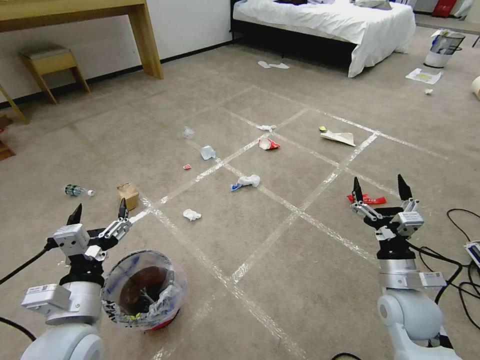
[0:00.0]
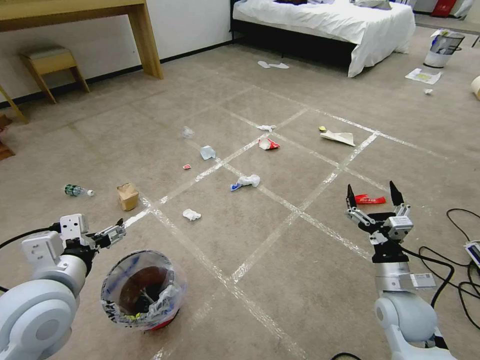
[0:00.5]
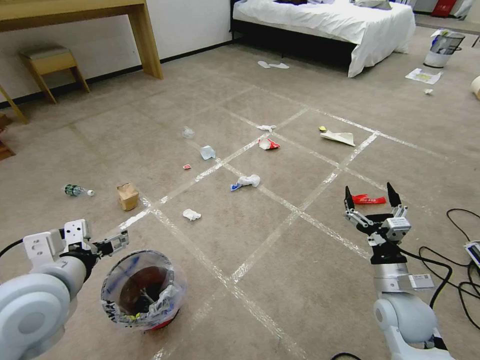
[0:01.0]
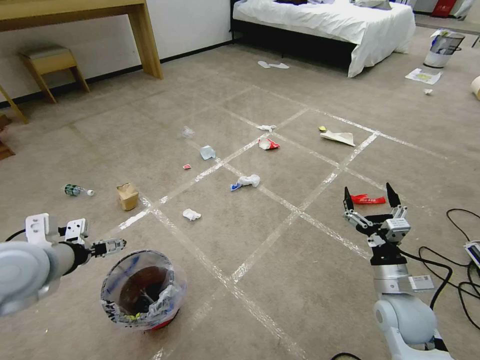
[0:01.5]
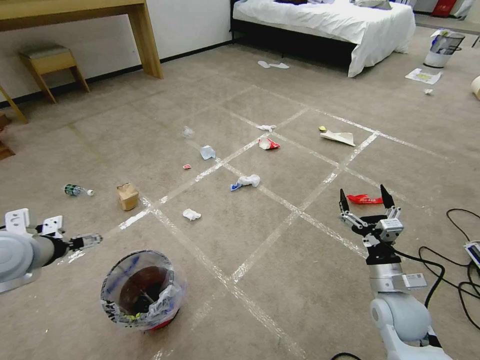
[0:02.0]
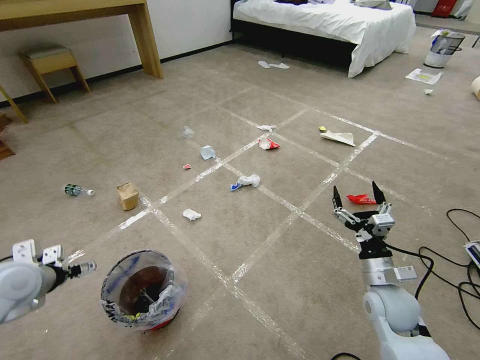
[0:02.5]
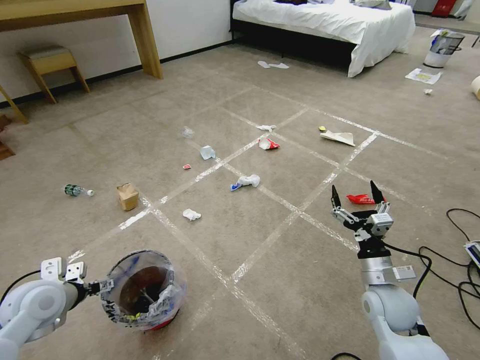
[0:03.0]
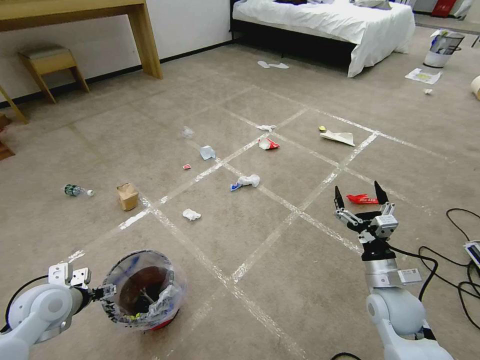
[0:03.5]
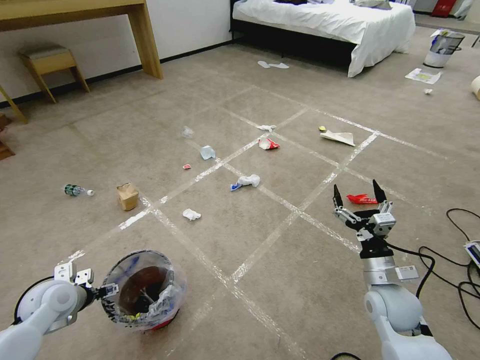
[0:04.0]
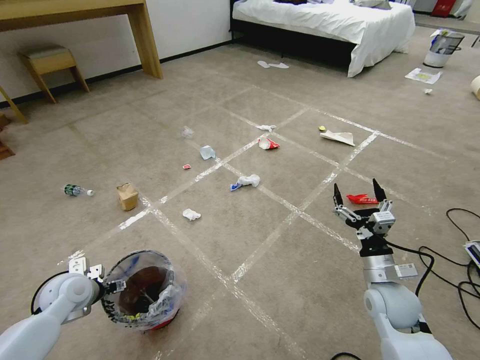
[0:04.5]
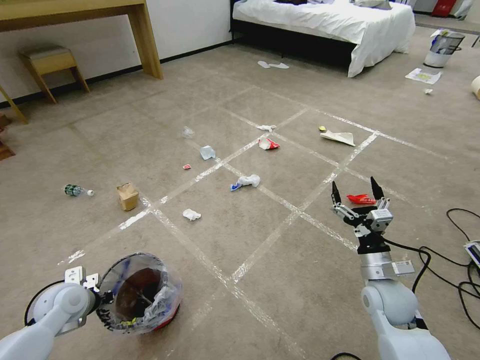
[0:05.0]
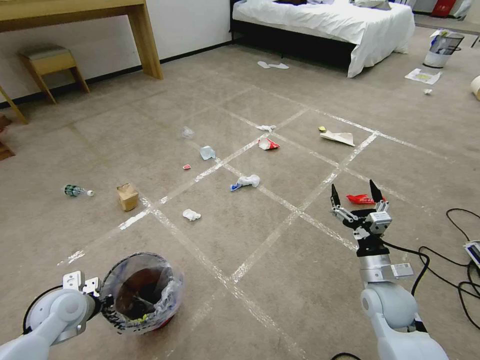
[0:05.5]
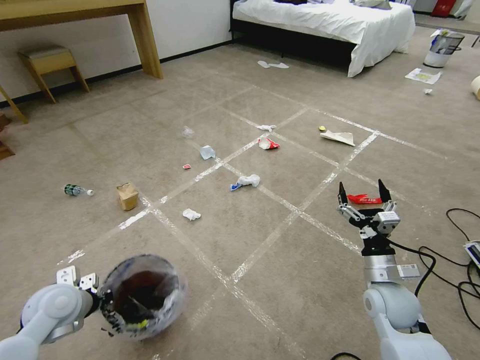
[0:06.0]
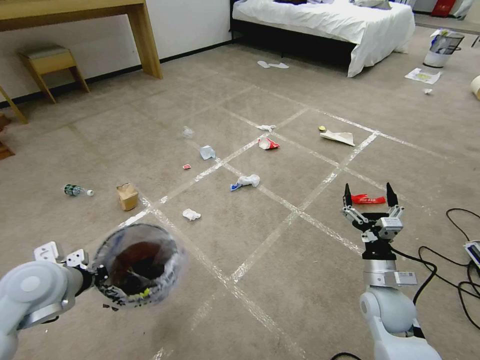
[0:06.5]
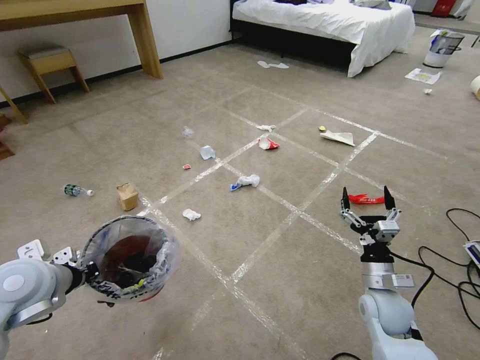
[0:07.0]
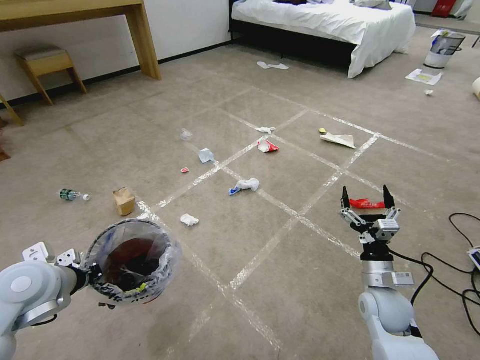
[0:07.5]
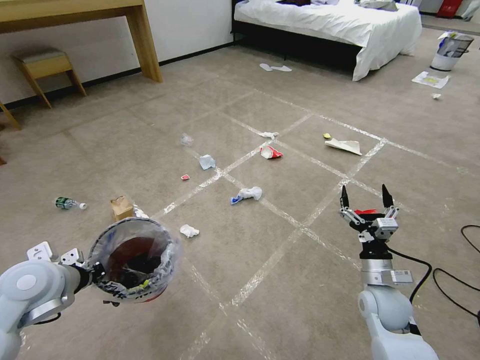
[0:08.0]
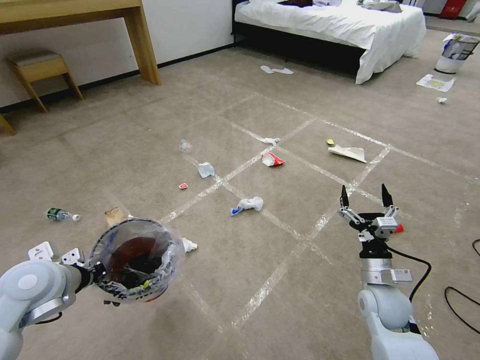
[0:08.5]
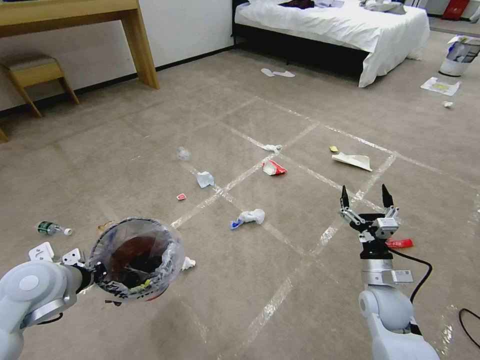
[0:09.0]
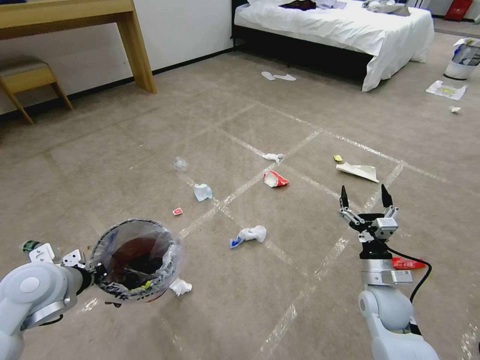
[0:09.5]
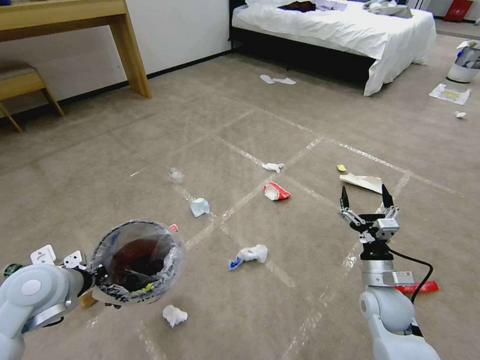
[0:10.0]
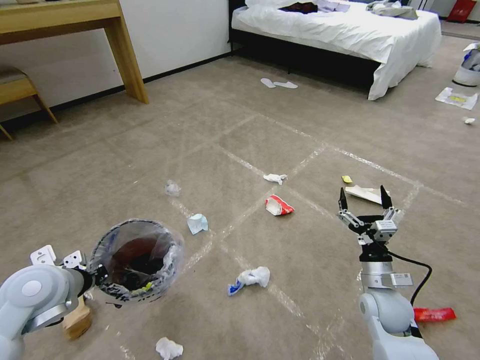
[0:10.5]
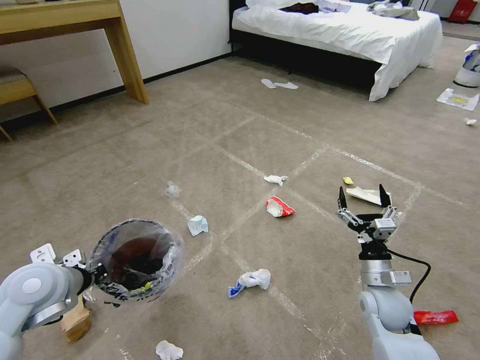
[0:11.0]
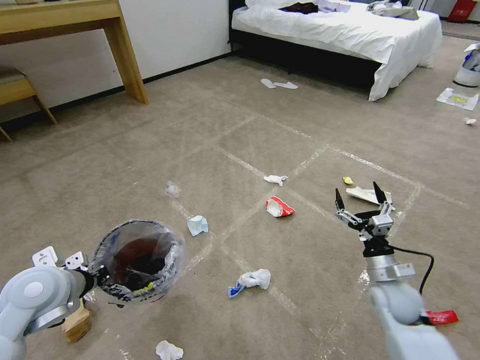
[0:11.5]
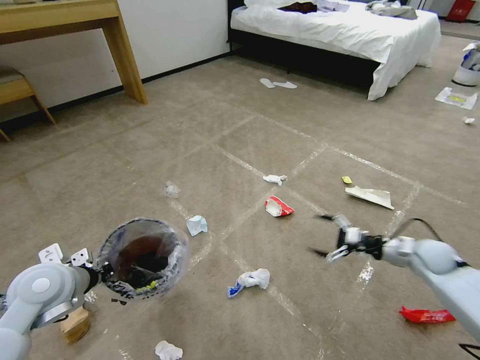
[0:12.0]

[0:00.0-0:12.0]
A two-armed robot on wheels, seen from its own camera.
Task of the whole recording: Pick up the trash bin and place the garbage on the floor into it.
0:02.0 to 0:04.0: The left gripper goes approximately 15 cm downward.
0:04.0 to 0:06.0: The left gripper closes.
0:06.0 to 0:08.0: The left gripper is displaced upward by approximately 10 cm.
0:10.0 to 0:12.0: The right gripper is displaced to the right and forward by approximately 20 cm.

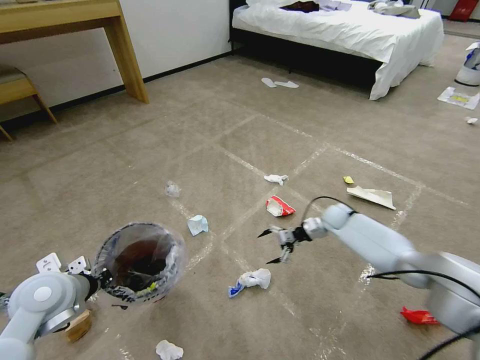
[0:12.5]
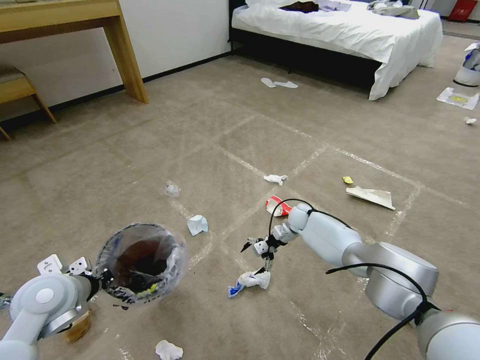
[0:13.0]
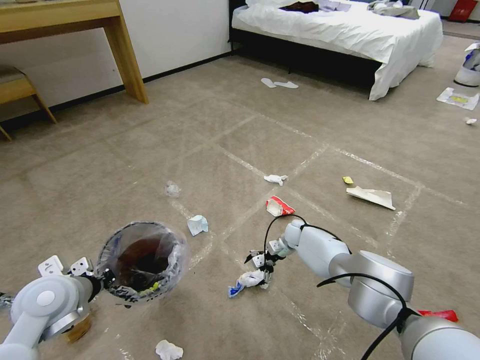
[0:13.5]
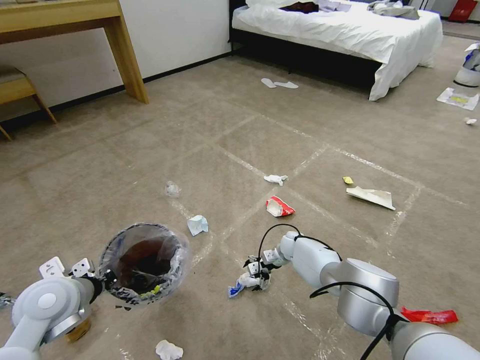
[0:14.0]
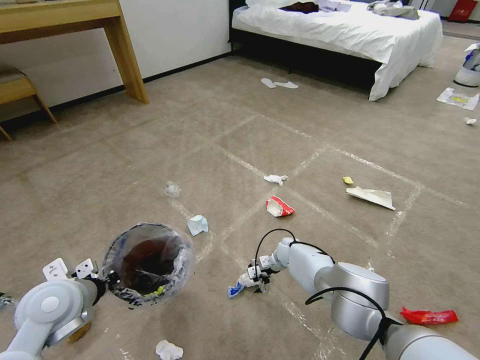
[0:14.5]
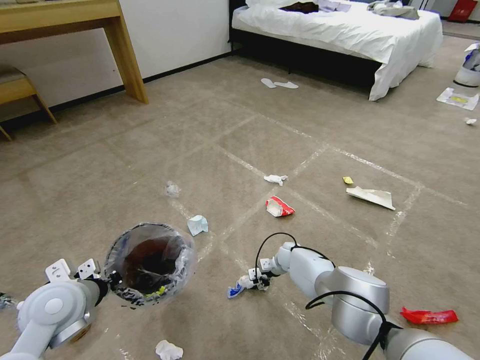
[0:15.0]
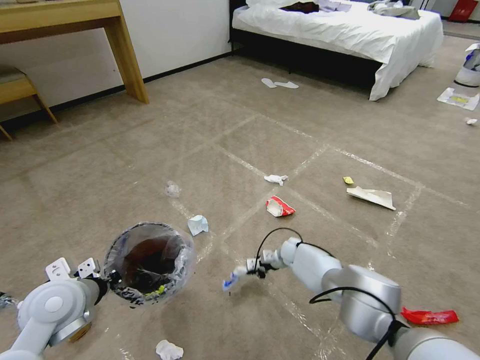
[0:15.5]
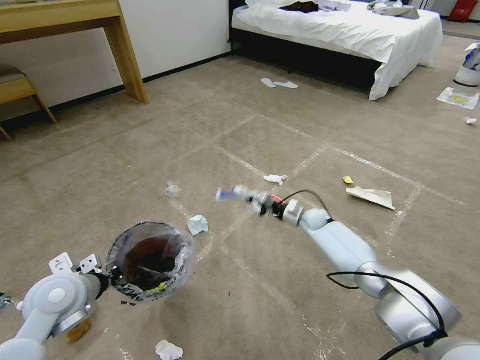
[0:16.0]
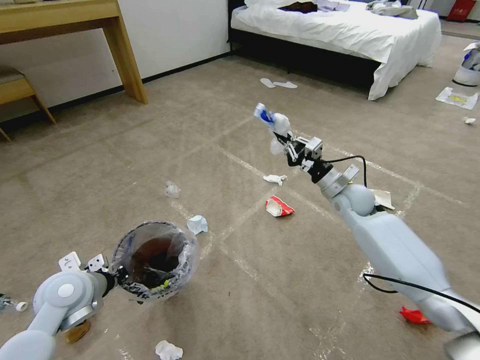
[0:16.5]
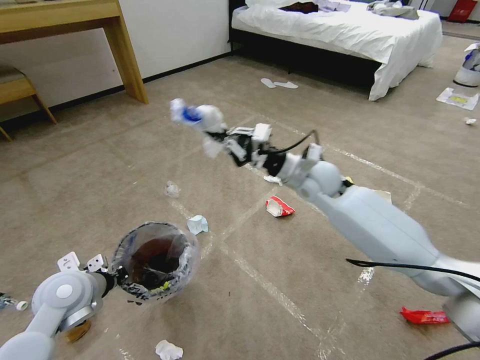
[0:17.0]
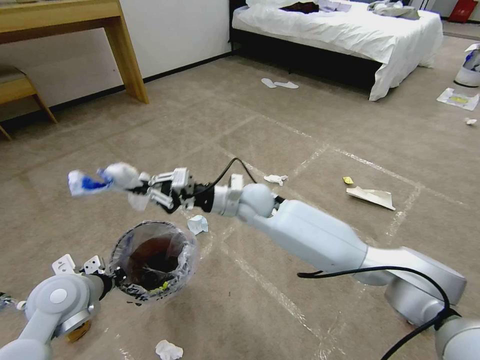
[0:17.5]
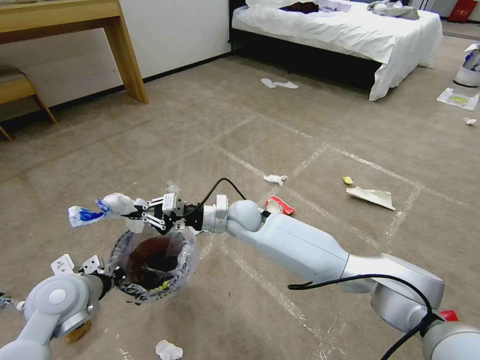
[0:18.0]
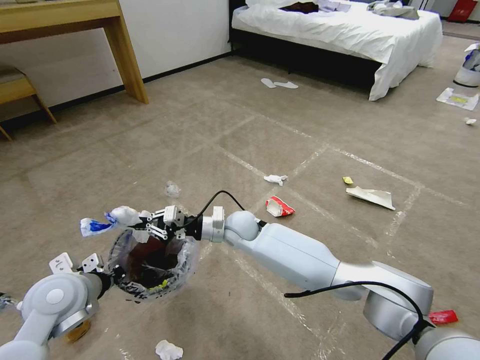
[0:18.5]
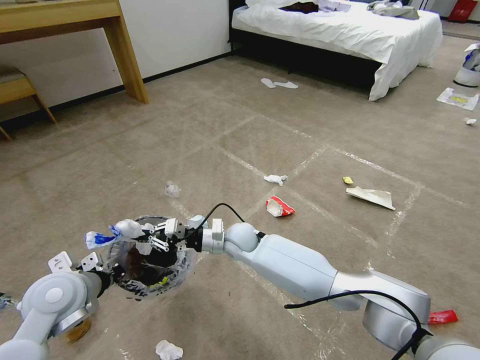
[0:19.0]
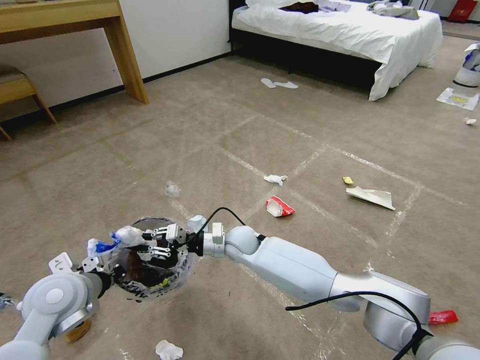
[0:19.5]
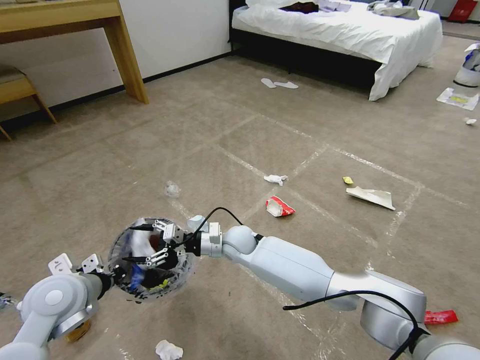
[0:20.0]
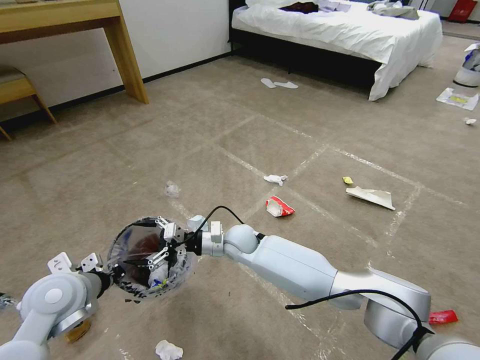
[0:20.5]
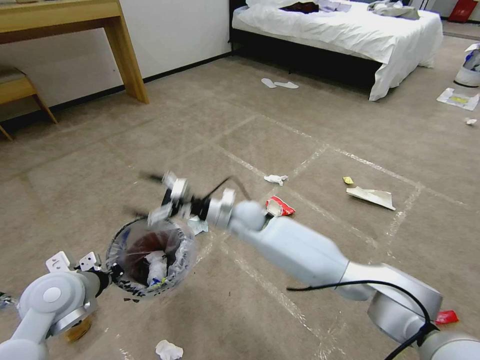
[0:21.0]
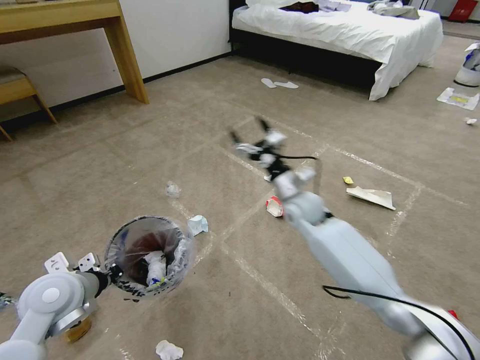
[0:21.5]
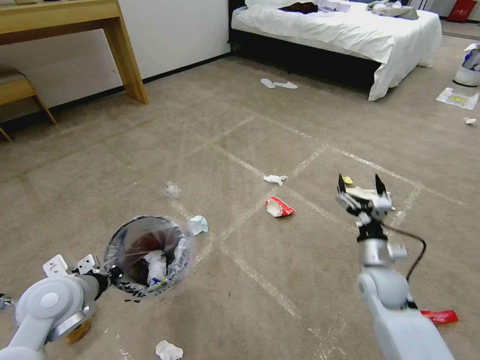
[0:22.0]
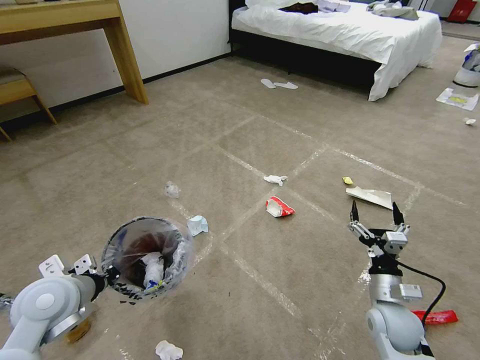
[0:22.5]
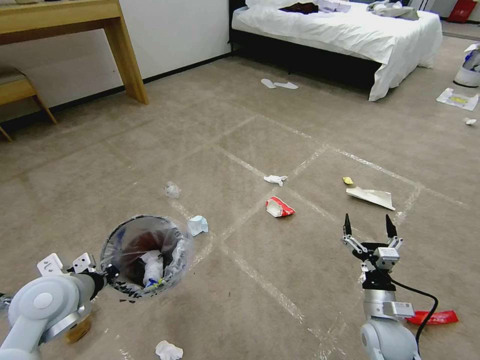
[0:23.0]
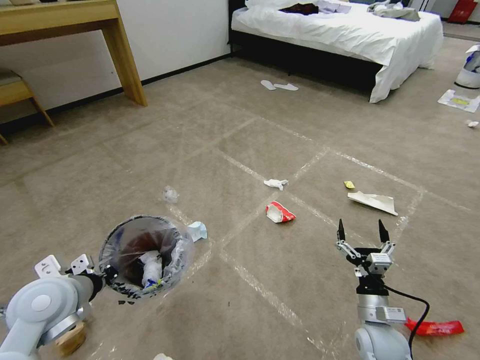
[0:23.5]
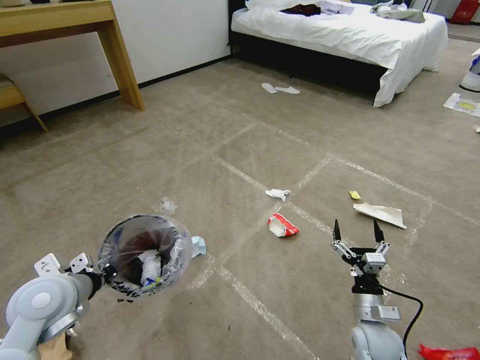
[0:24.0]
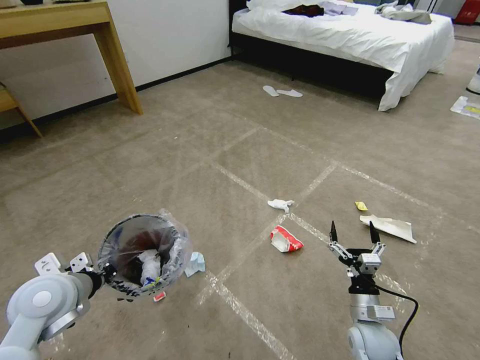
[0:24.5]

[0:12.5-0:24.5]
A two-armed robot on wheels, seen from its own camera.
Task of the whole recording: Pick up the trash bin and place the garbage on the floor into it.
0:12.5 to 0:14.5: The right gripper goes approximately 20 cm to the left and downward.
0:14.5 to 0:16.5: The right gripper shifts approximately 30 cm upward, and closes its fingers.
0:16.5 to 0:18.5: The right gripper travels to the left by approximately 30 cm.
0:18.5 to 0:20.5: The right gripper opens its fingers.
0:20.5 to 0:22.5: The right gripper is displaced to the right and backward by about 40 cm.
0:22.5 to 0:24.5: The right gripper goes some 5 cm downward.

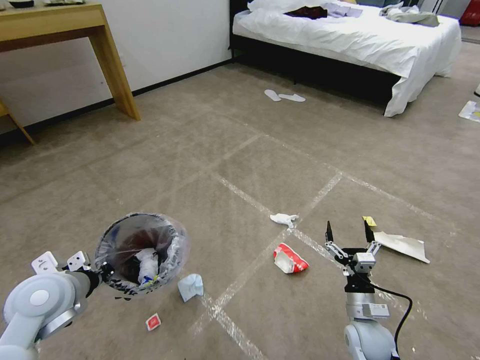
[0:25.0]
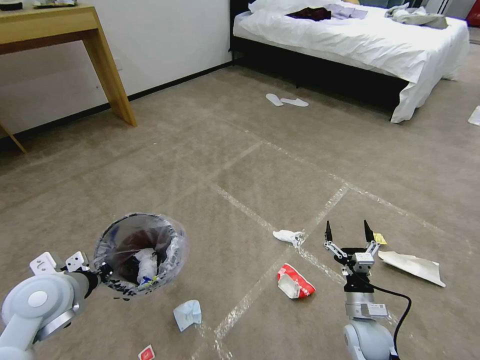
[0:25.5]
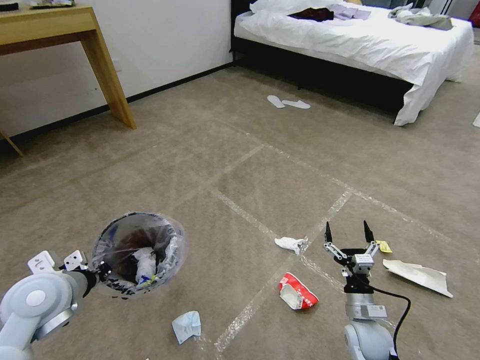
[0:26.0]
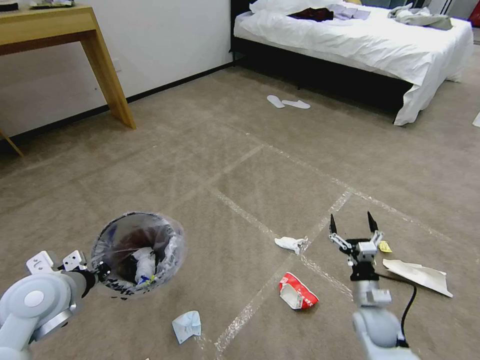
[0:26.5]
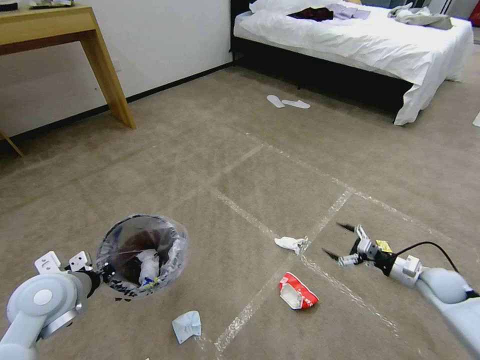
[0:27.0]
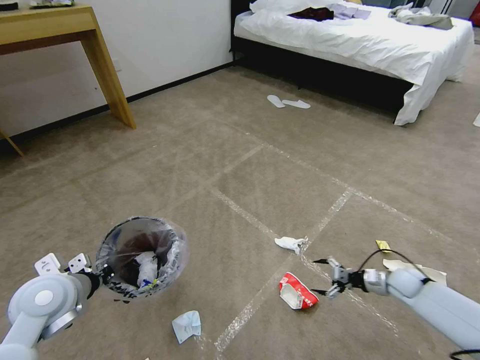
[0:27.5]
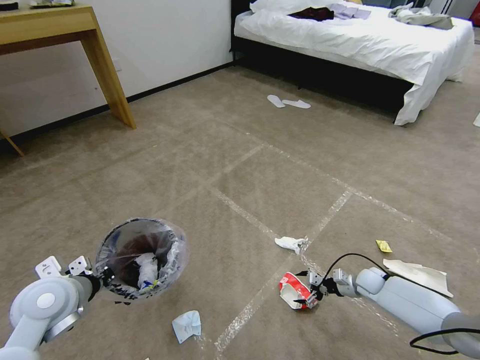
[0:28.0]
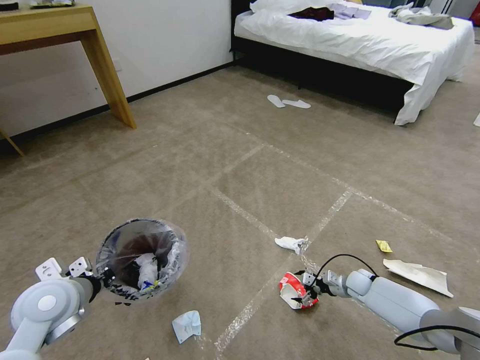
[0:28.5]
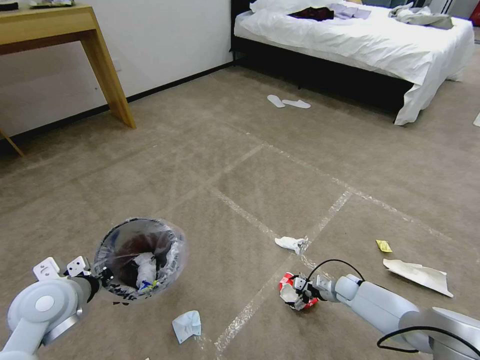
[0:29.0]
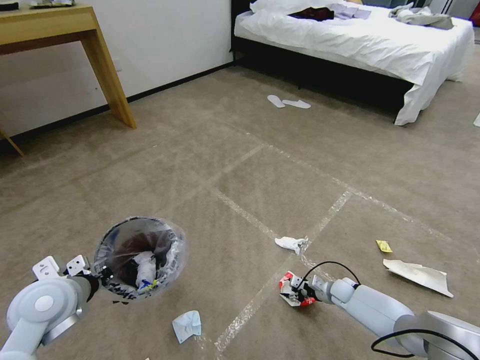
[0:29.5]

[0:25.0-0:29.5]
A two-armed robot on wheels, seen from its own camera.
Task of the whole recording: Pick up the trash bin and place the garbage on the floor into it.
0:25.0 to 0:27.0: The right gripper goes some 25 cm to the right and forward.
0:27.0 to 0:29.5: The right gripper is displaced downward and to the left by some 25 cm, and closes.
